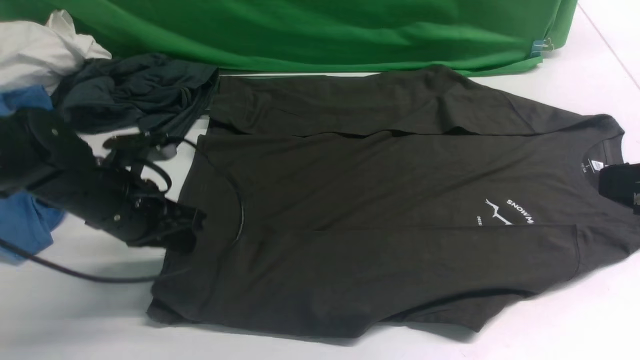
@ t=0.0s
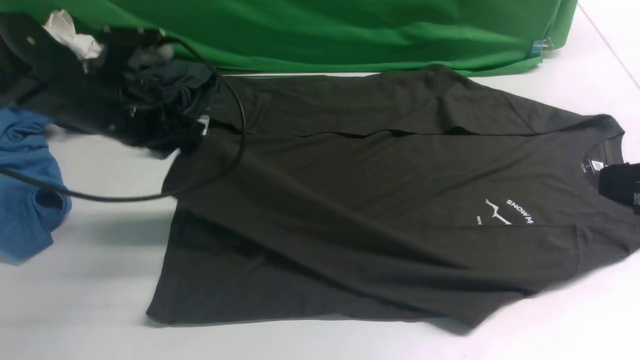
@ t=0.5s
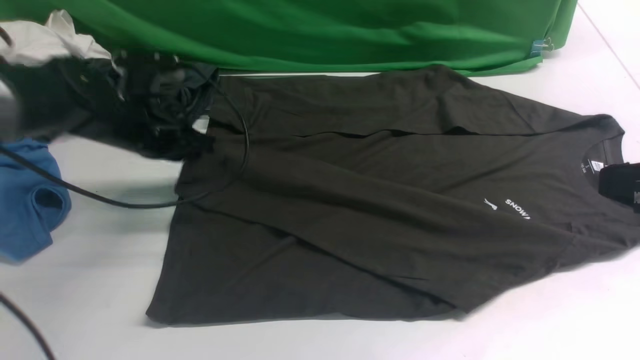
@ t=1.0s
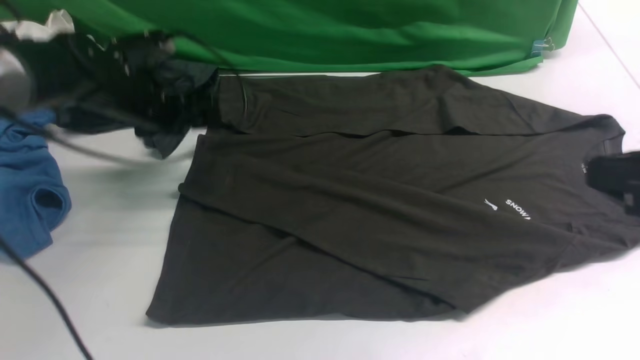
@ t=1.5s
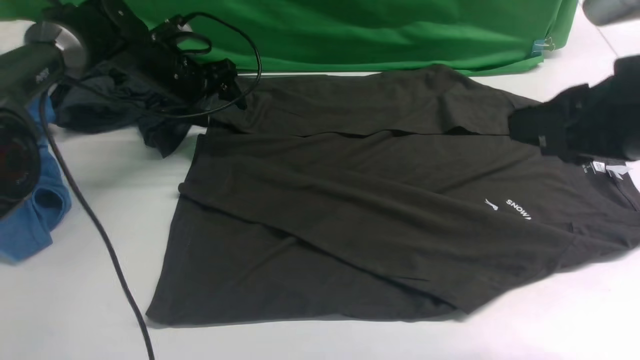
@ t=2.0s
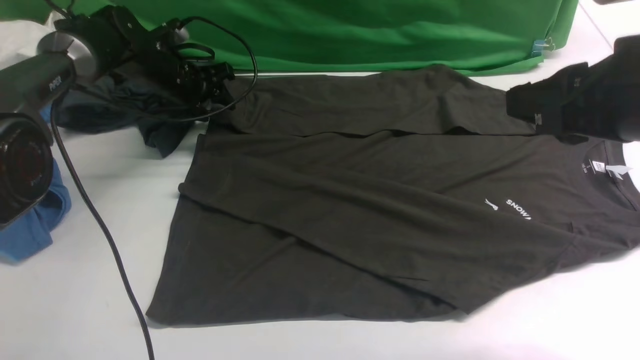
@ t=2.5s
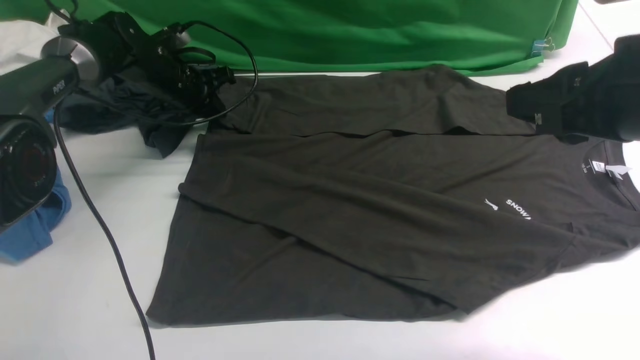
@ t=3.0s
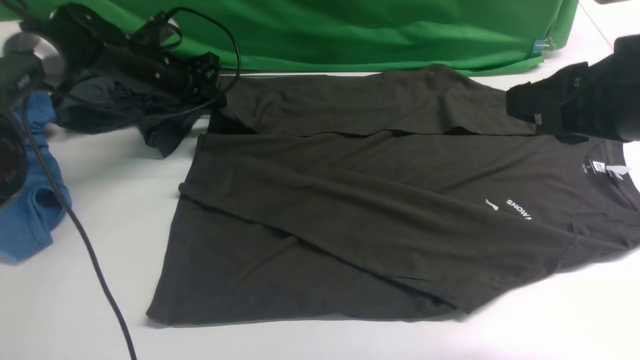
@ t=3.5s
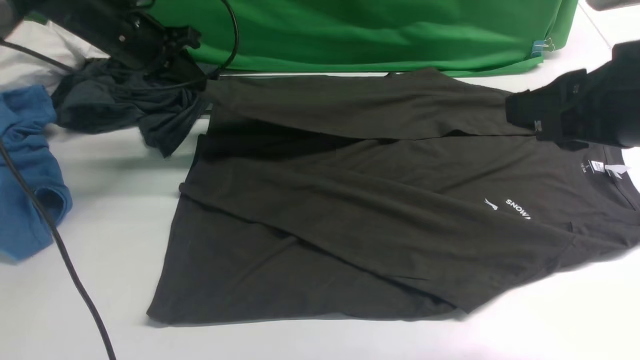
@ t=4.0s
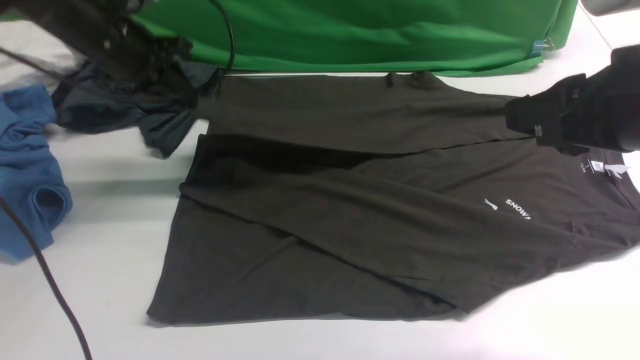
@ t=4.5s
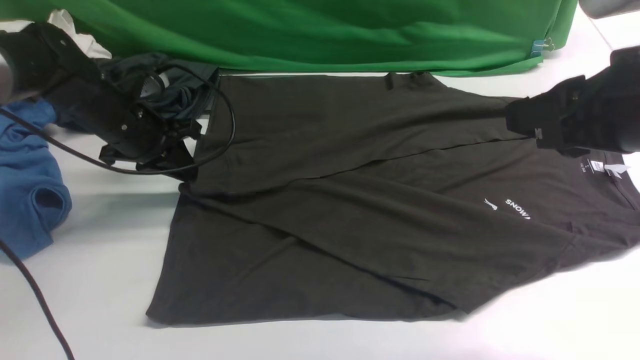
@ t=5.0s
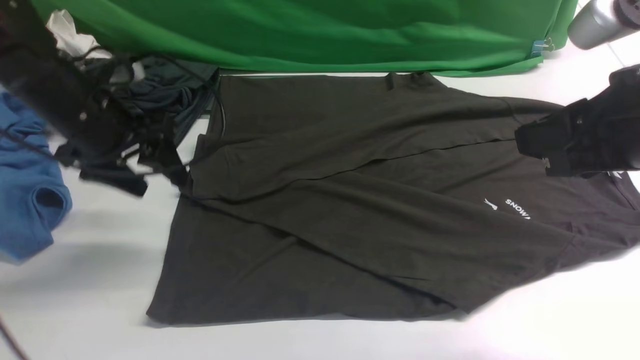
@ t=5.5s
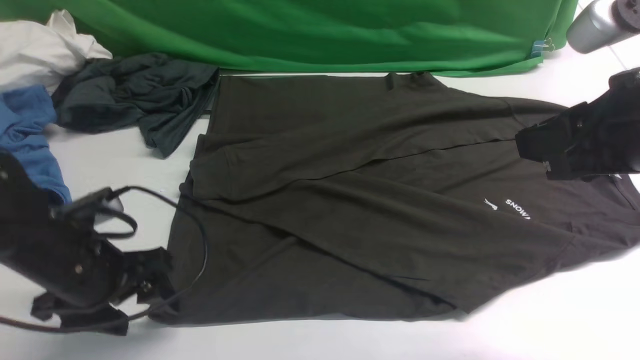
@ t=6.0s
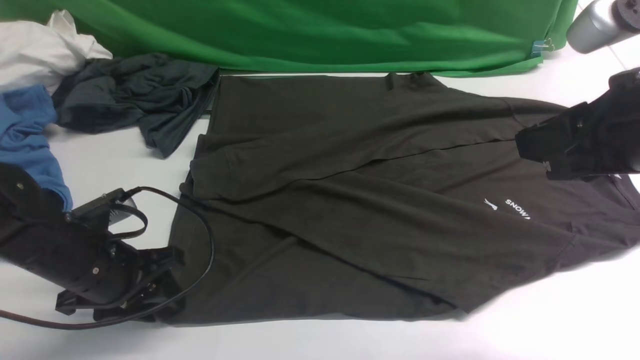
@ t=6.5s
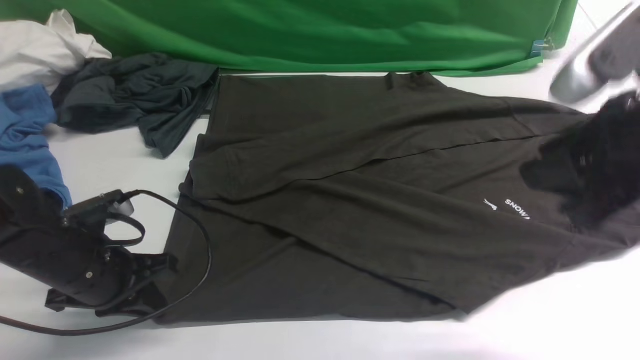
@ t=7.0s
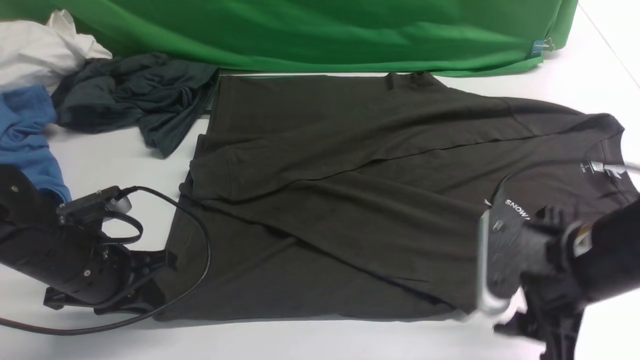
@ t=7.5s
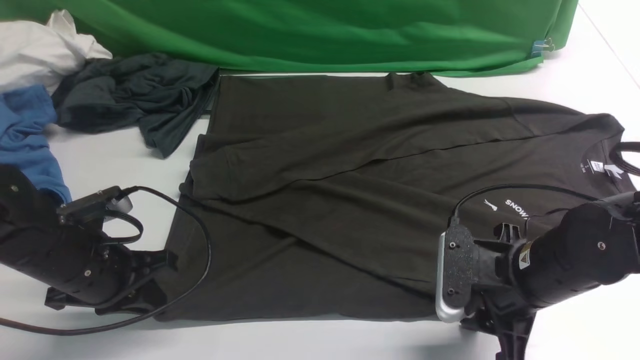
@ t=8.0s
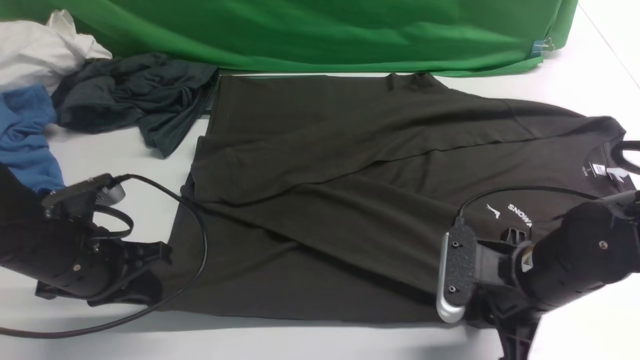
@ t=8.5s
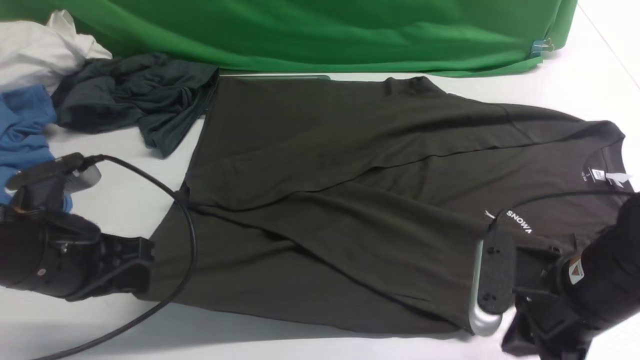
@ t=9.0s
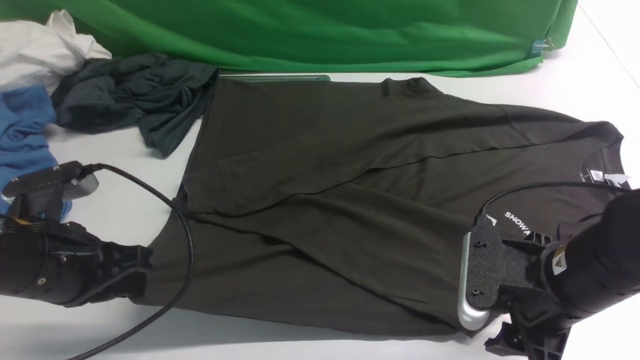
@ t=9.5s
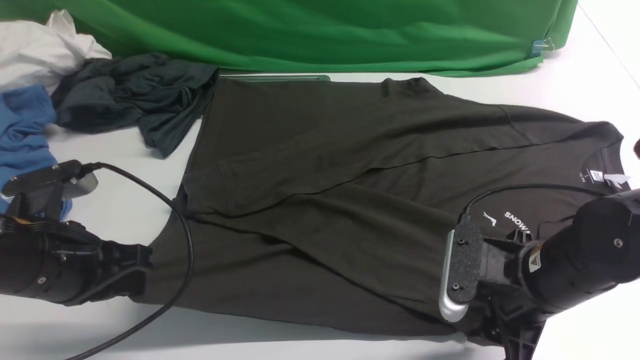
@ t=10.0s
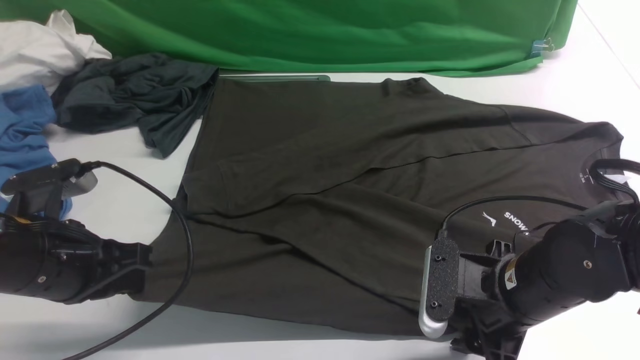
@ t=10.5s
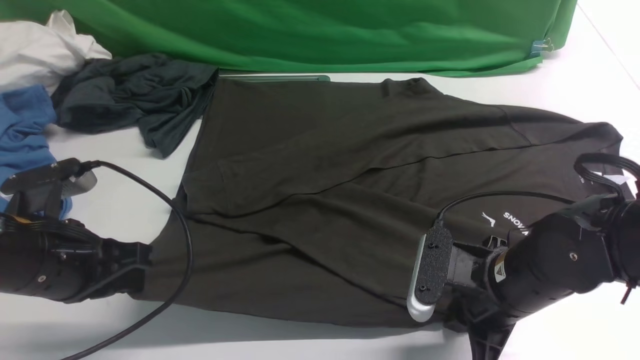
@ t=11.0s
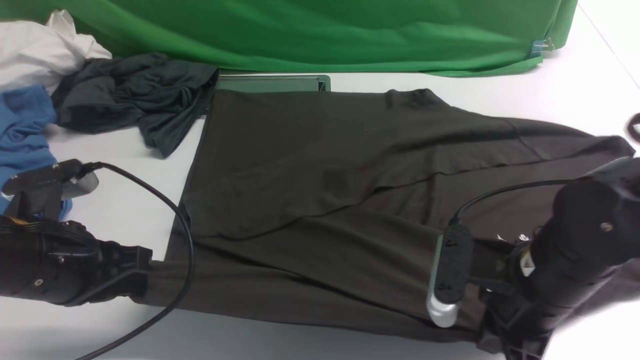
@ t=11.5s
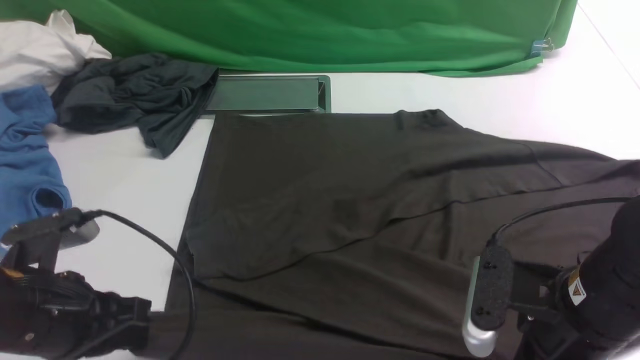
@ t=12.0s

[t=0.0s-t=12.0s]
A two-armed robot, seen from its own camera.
Step, t=0.5s to t=1.0s: use the left arm to drag and place the cuff at the centered position on the left edge of the fabric.
Step, t=1.5s to t=3.5s: use the left arm to clamp the cuff farthest from it.
Step, t=4.0s to t=5.0s: use the left arm to drag and drop the cuff onto the cuff closest to the left arm.
Step, t=5.5s to t=12.0s: use both arms simultaneously to clamp the lower edge of the clothing fabric.
t=0.0s to t=2.0s: The left gripper shifts about 20 cm forward, and opens. The right gripper goes some 5 cm forward.
t=2.0s to t=4.0s: The left gripper moves upward, roughly 5 cm, and closes up.
t=4.0s to t=6.0s: The left gripper goes roughly 25 cm backward, and opens.
t=6.0s to t=8.0s: The left gripper closes, while the right gripper goes approximately 20 cm downward.
t=8.0s to t=10.0s: The right gripper closes and opens again. The left gripper is displaced upward by about 5 cm.
t=10.0s to t=12.0s: The right gripper is displaced upward by some 5 cm, and closes.

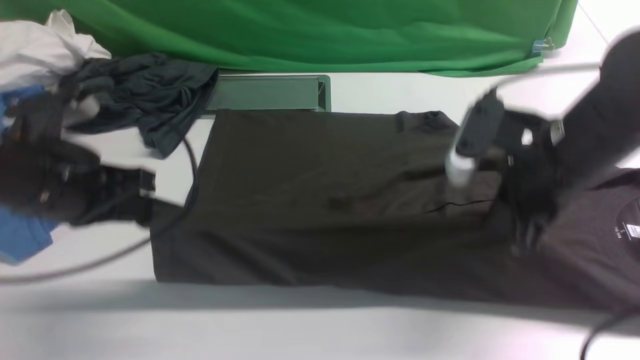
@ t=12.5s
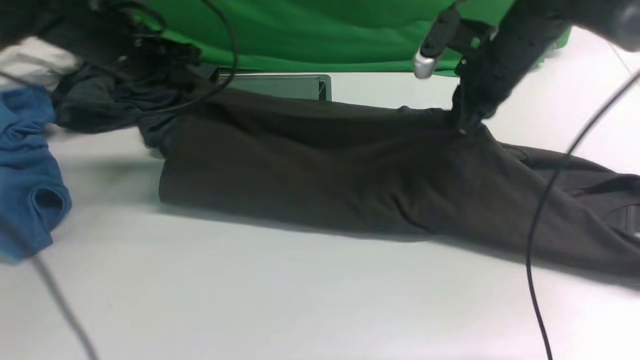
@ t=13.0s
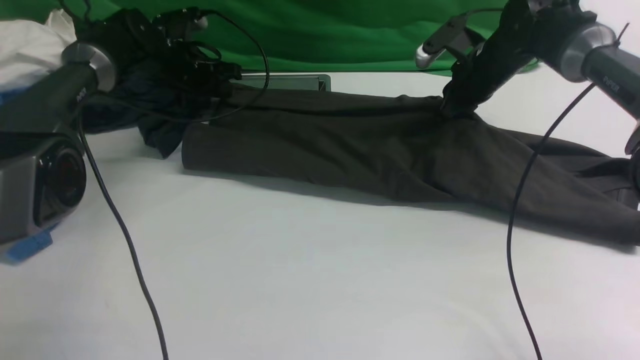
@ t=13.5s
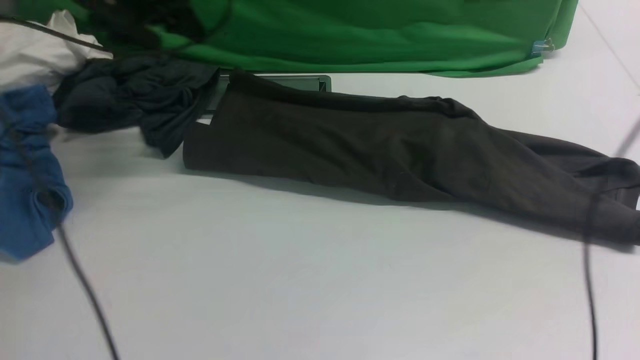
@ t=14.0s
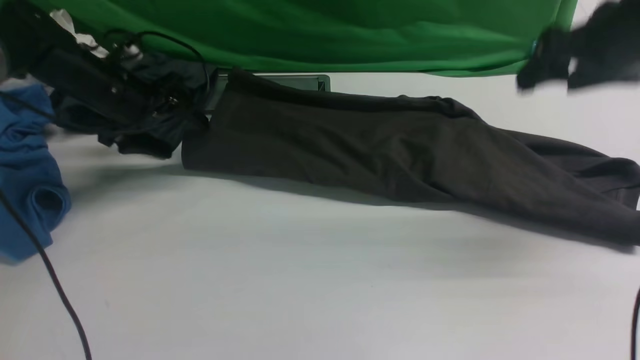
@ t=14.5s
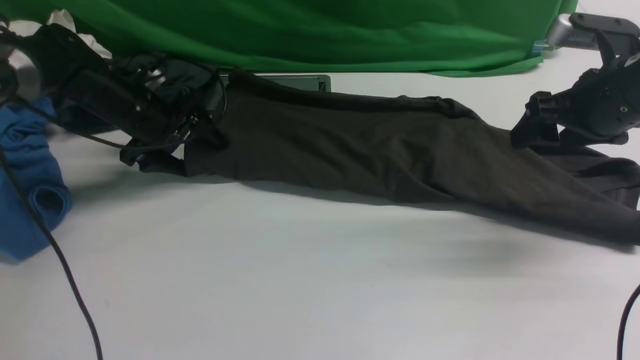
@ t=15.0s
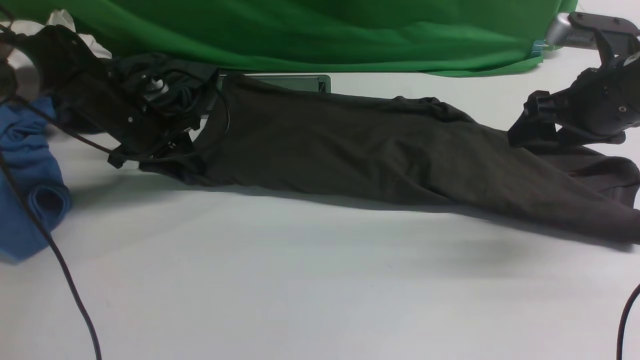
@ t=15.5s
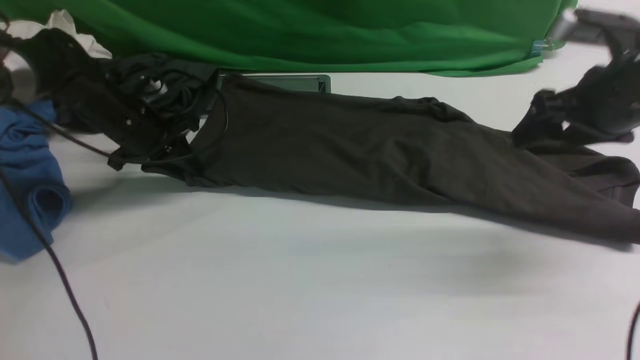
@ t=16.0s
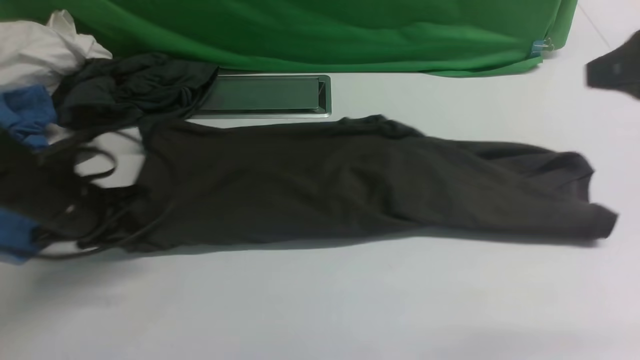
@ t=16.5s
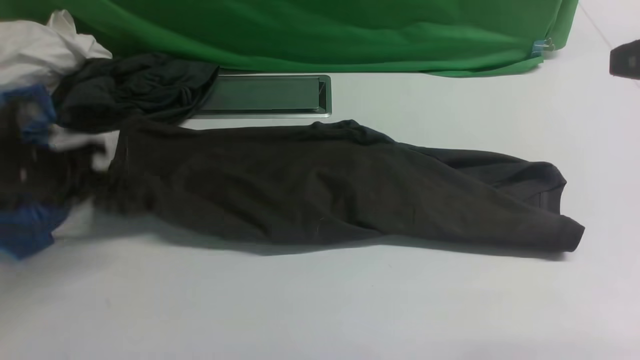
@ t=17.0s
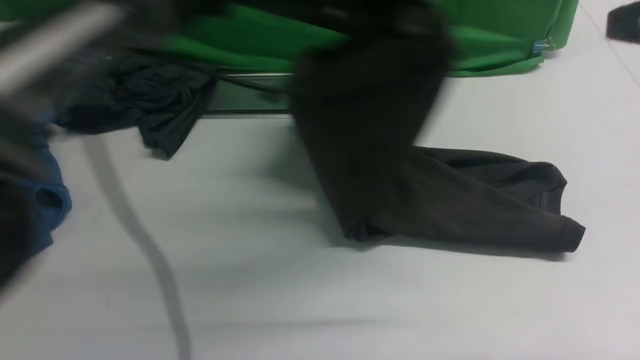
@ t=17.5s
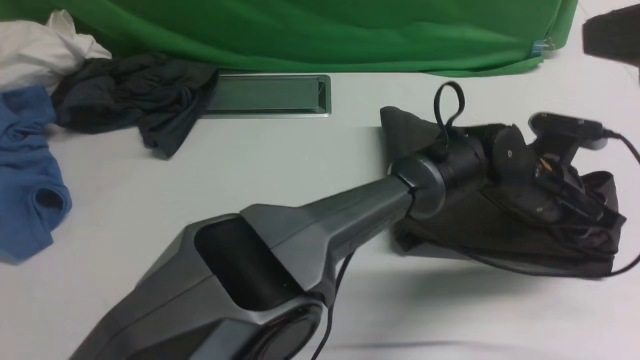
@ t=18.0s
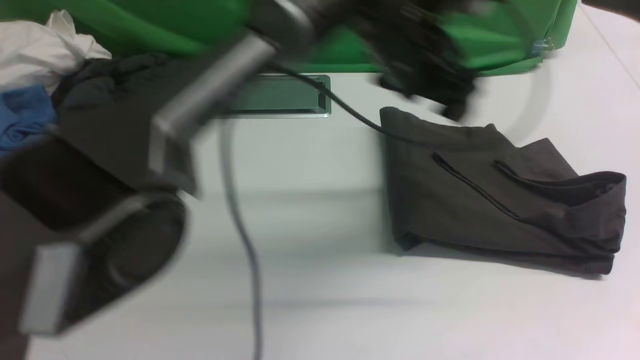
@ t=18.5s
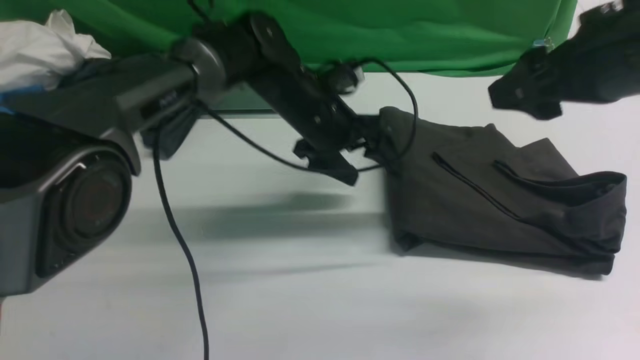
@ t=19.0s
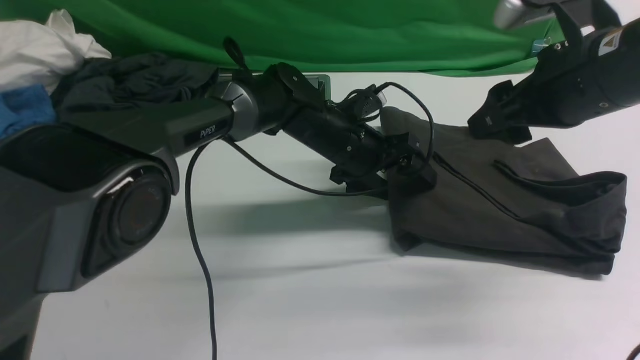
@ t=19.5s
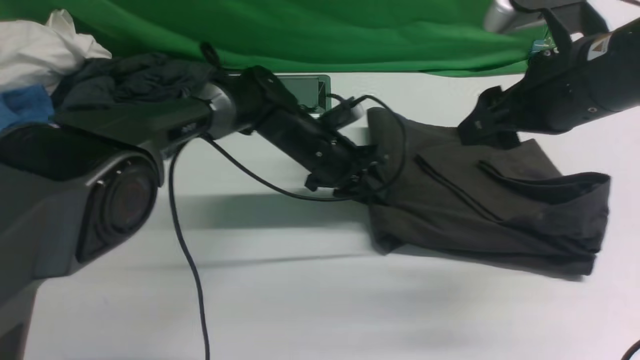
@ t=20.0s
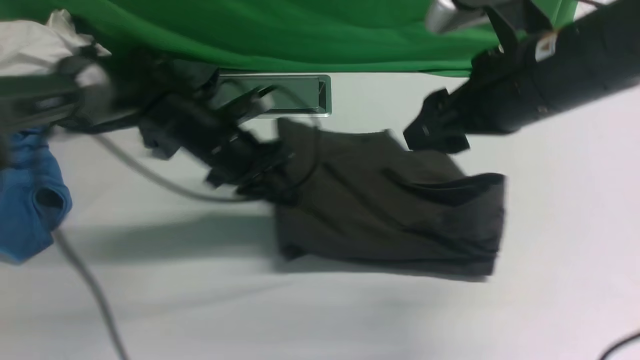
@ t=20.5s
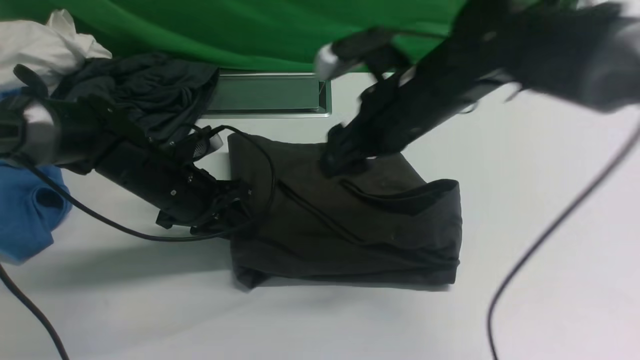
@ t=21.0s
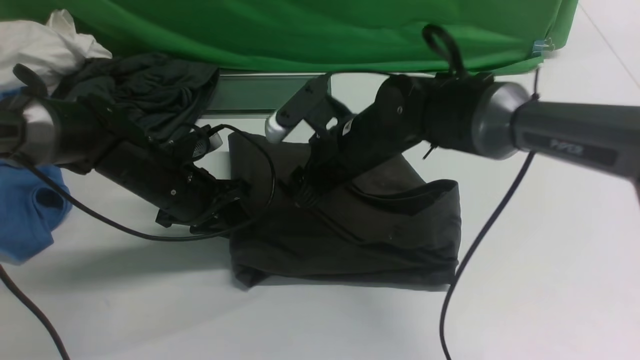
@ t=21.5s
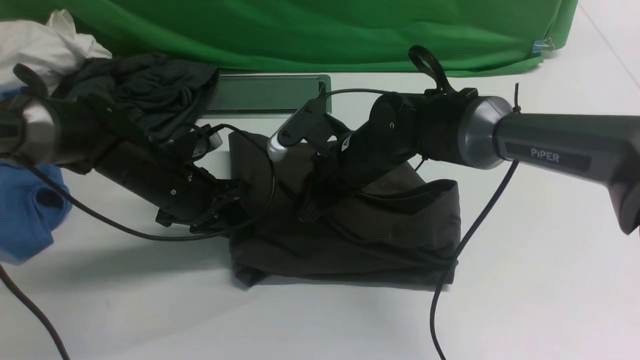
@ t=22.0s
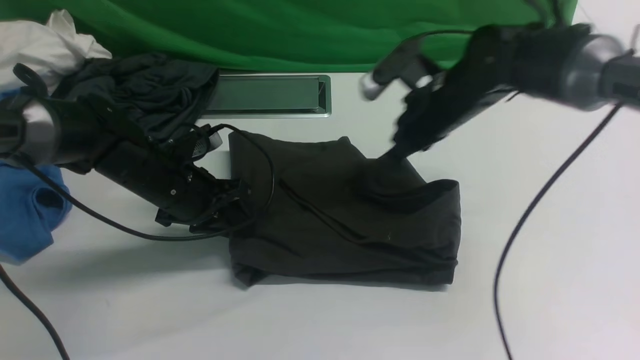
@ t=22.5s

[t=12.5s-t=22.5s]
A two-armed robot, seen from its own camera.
Step, t=12.5s to t=13.5s: use both arms to drag the lower edge of the fabric forward and fold it over the upper edge.
Step, t=14.0s to t=16.5s: Hold the left edge of the fabric with your left arm.
Step, t=17.0s to t=18.0s: Drag the left edge of the fabric to the left with your left arm and fold it to the right edge.
t=12.5s to t=14.5s: The left gripper shifts some 20 cm forward, and opens, while the right gripper is displaced to the right and upward by some 10 cm, moves approximately 25 cm forward and comes back, and opens its fingers.
t=14.5s to t=16.5s: The left gripper goes about 15 cm backward, and closes its fingers. The right gripper shifts roughly 10 cm backward and upward, and closes.
t=16.5s to t=18.5s: The left gripper travels to the right by about 35 cm, and opens up; the right gripper moves upward, some 5 cm, and closes, then reopens.
t=18.5s to t=20.5s: The right gripper goes some 15 cm downward, forward and to the left. Meanwhile the left gripper travels to the left and downward by about 25 cm, and closes its fingers.
t=20.5s to t=22.5s: The right gripper moves forward and downward, approximately 20 cm, and closes. Meanwhile the left gripper changes place by roughly 5 cm.
